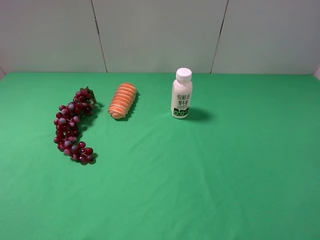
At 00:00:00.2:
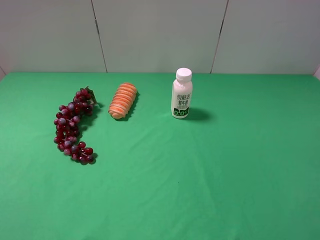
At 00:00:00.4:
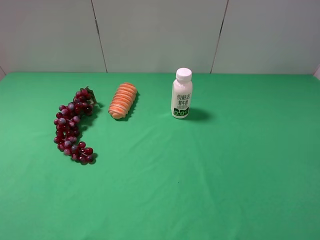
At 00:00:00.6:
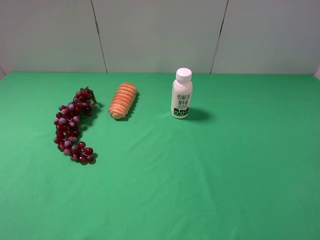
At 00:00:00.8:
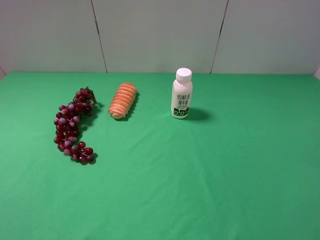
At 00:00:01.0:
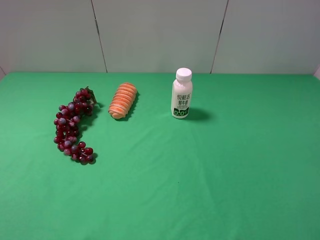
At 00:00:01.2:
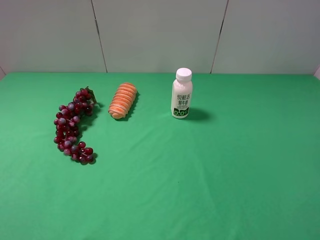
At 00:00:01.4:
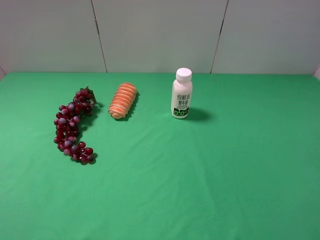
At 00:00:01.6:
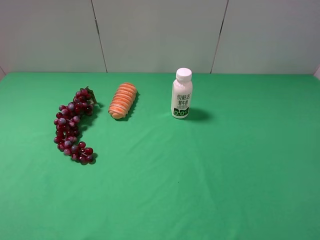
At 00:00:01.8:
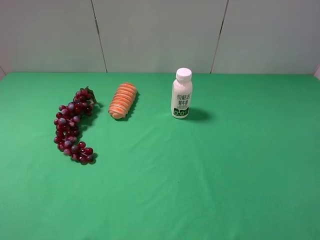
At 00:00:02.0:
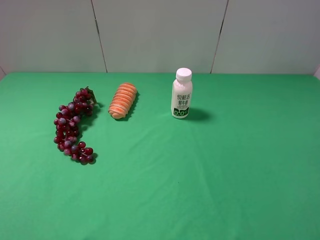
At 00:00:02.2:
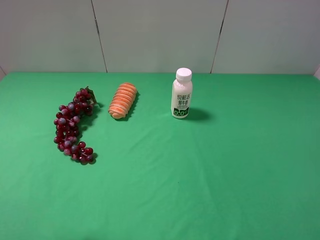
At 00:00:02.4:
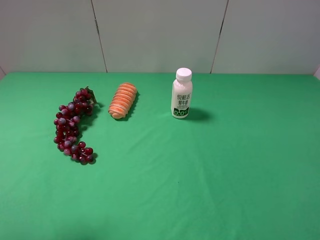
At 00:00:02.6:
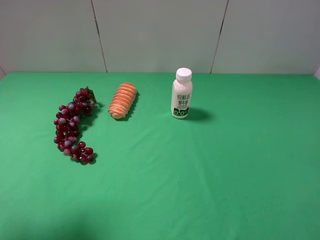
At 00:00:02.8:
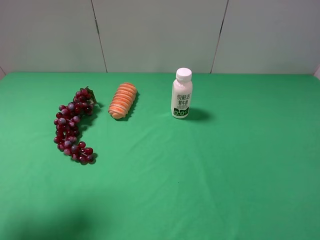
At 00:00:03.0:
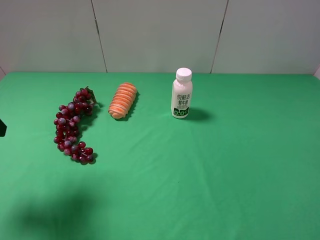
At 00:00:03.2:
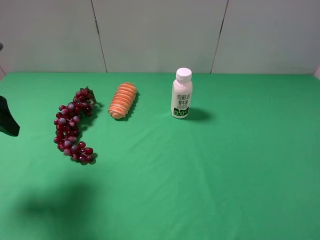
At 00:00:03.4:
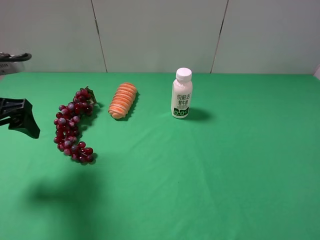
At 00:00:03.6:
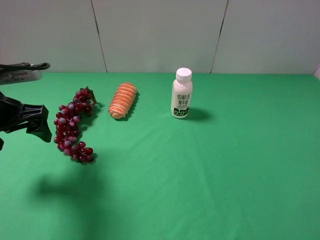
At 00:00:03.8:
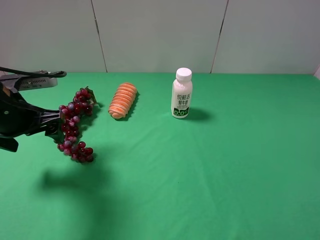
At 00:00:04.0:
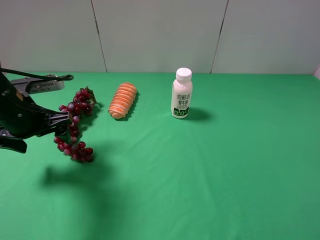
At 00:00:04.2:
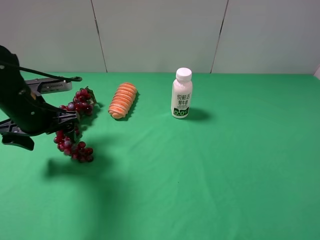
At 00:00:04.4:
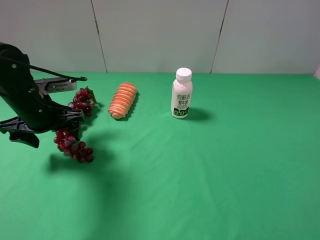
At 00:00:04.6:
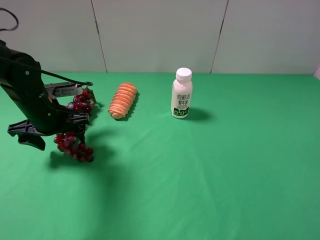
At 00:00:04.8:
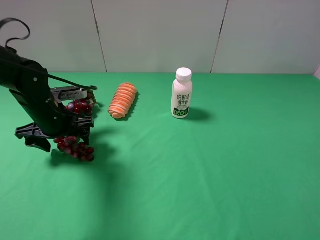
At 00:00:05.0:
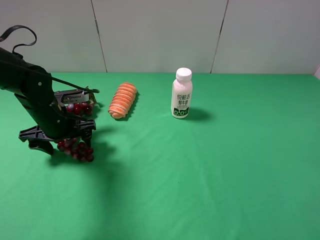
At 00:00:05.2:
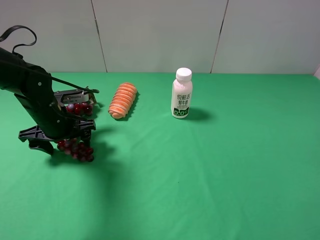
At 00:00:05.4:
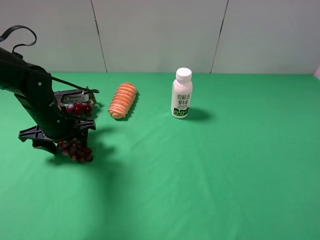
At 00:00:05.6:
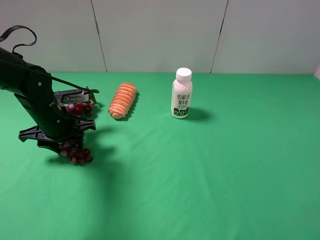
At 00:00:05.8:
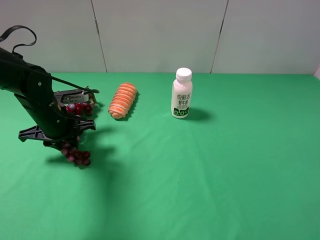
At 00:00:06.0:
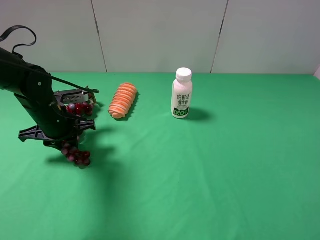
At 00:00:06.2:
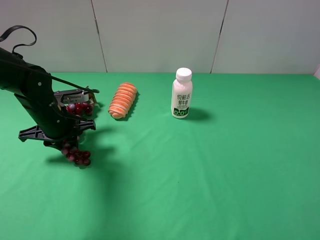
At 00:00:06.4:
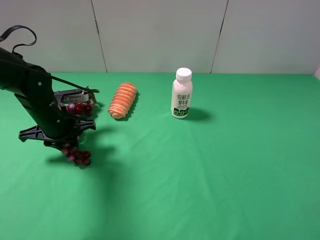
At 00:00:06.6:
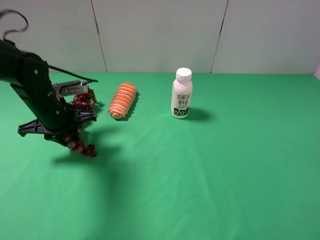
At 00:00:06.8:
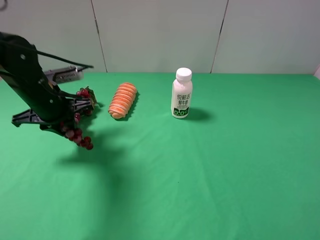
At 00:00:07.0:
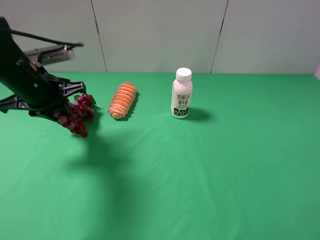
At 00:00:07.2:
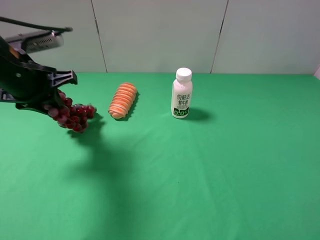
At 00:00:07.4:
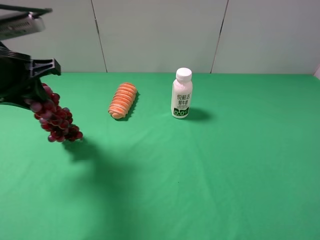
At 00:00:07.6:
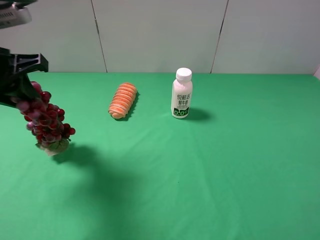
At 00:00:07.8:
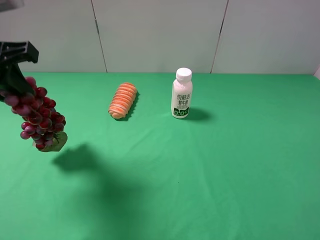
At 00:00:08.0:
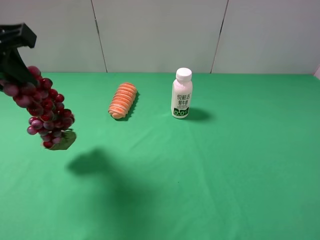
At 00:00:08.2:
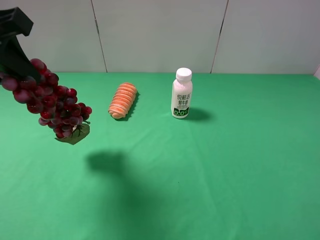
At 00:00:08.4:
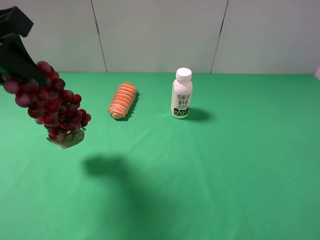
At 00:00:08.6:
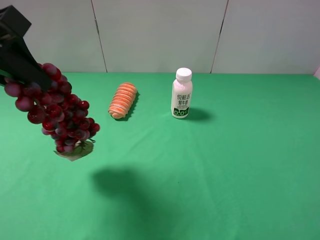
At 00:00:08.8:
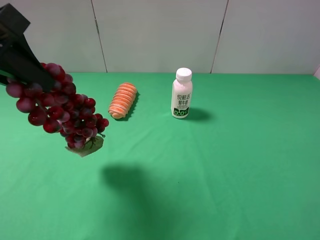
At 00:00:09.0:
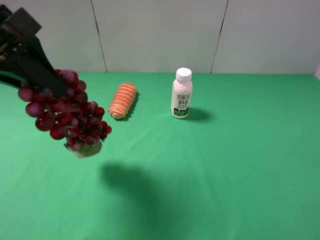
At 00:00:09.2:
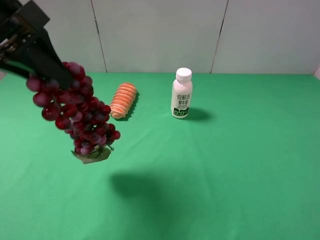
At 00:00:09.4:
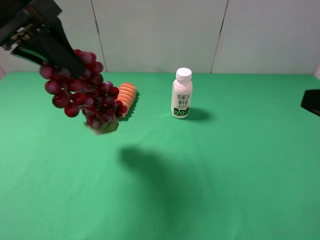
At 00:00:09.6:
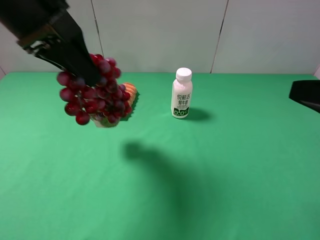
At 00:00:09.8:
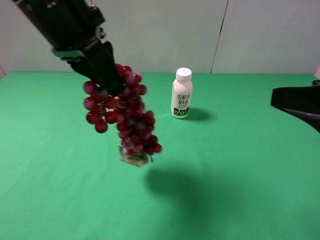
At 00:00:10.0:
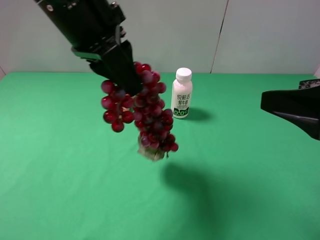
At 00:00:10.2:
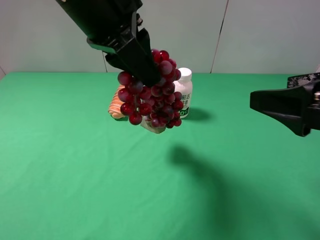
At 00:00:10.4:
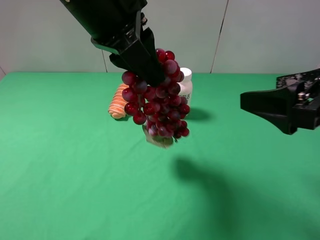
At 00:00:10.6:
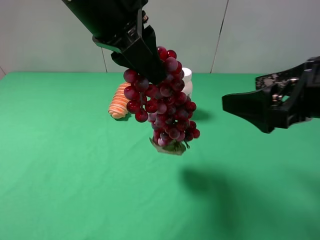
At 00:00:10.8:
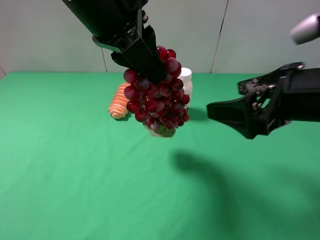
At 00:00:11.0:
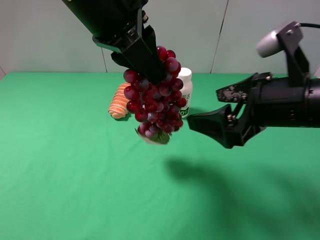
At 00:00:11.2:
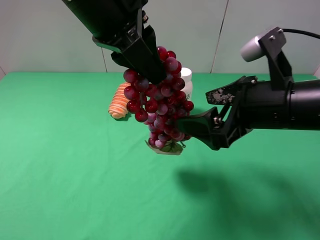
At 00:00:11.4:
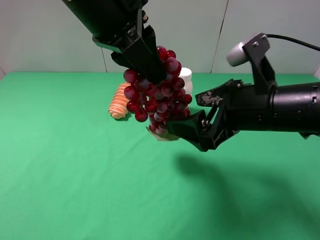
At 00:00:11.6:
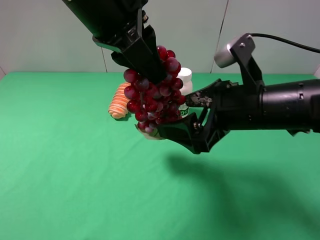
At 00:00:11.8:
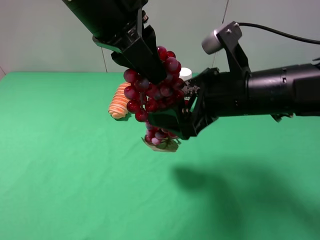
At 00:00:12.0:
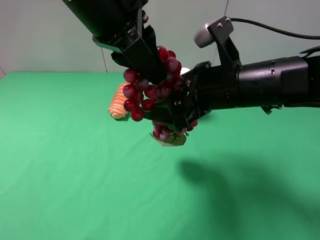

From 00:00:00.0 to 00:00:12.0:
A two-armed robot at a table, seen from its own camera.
Task of the whole recording: use the left gripper to pick up the item and transfer it from the left gripper to the right gripper.
Step, from 00:00:00.0 to 00:00:05.8: Use the left gripper to grab the grape on the left side of the table.
From 00:00:00.0 to 00:00:01.6: Both grippers stay about where they are.
From 00:00:01.6 to 00:00:03.0: The left gripper heads forward, covering about 20 cm.
From 00:00:03.0 to 00:00:04.4: The left gripper moves downward, forward and to the right, some 20 cm.
From 00:00:04.4 to 00:00:06.0: The left gripper closes.
From 00:00:06.0 to 00:00:07.6: The left gripper travels upward and backward by approximately 20 cm.
From 00:00:07.6 to 00:00:09.0: The left gripper shifts by approximately 5 cm.
From 00:00:09.0 to 00:00:10.4: The left gripper heads to the right, covering some 15 cm. The right gripper heads forward and to the left, covering some 10 cm.
From 00:00:10.4 to 00:00:12.0: The right gripper travels to the left and forward by approximately 15 cm.

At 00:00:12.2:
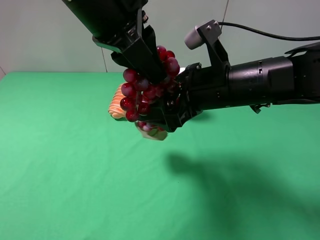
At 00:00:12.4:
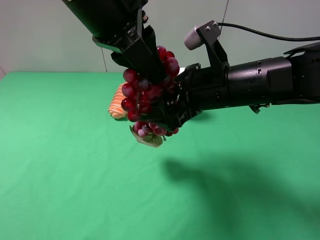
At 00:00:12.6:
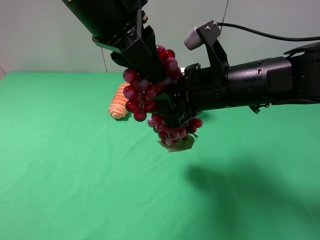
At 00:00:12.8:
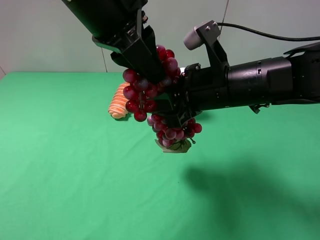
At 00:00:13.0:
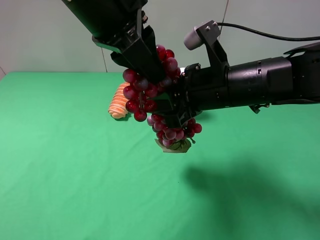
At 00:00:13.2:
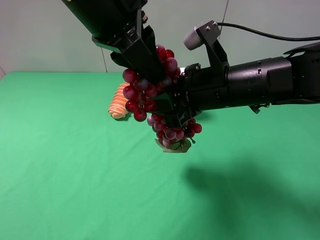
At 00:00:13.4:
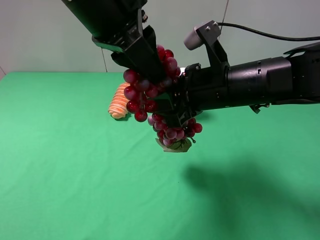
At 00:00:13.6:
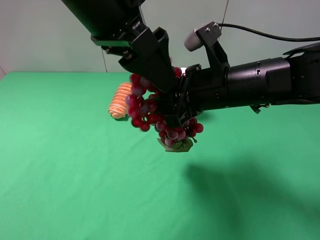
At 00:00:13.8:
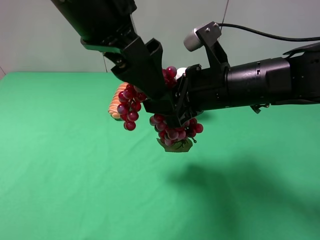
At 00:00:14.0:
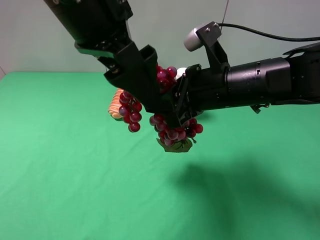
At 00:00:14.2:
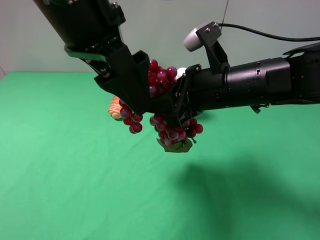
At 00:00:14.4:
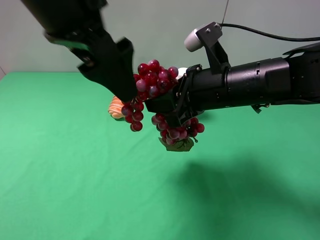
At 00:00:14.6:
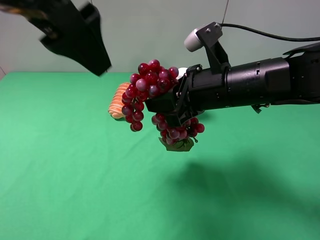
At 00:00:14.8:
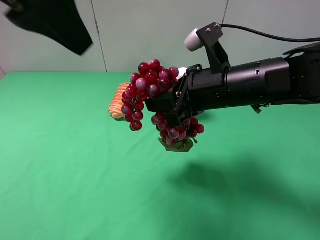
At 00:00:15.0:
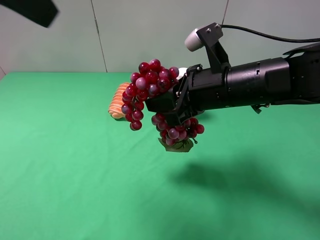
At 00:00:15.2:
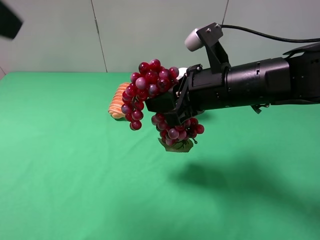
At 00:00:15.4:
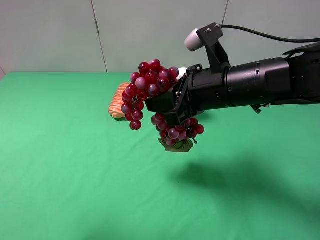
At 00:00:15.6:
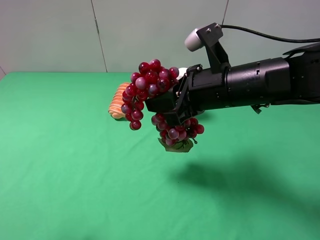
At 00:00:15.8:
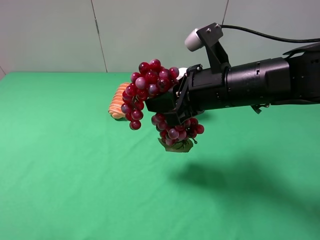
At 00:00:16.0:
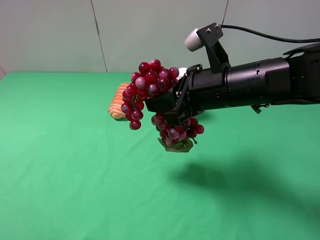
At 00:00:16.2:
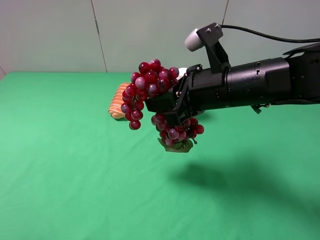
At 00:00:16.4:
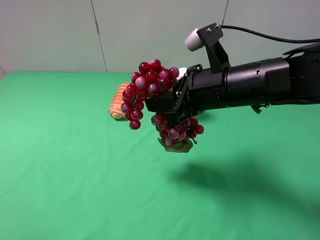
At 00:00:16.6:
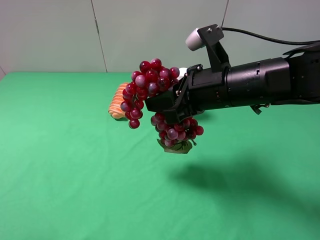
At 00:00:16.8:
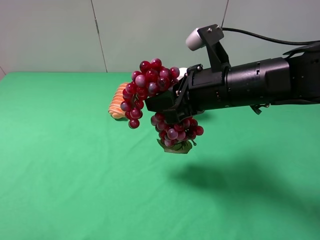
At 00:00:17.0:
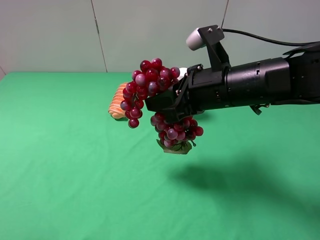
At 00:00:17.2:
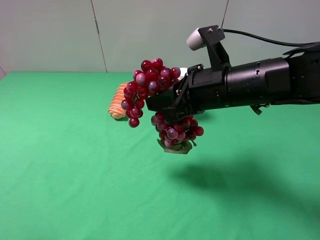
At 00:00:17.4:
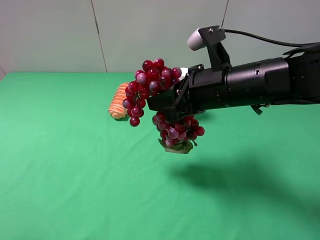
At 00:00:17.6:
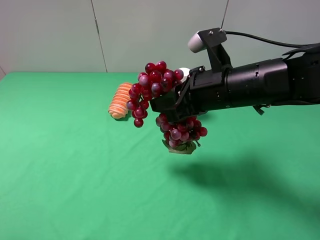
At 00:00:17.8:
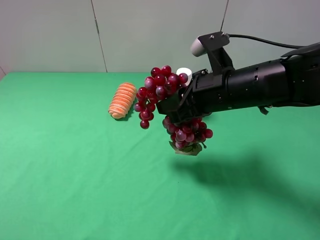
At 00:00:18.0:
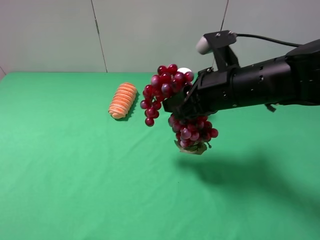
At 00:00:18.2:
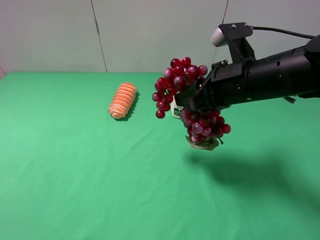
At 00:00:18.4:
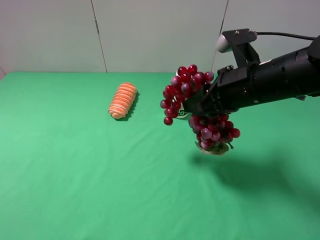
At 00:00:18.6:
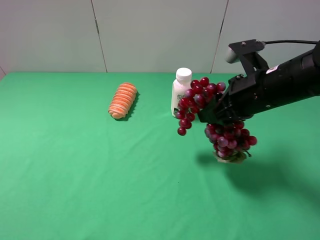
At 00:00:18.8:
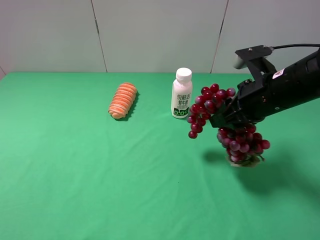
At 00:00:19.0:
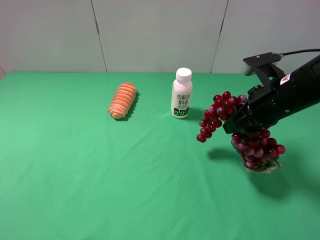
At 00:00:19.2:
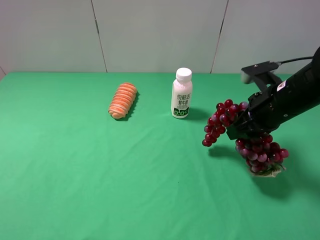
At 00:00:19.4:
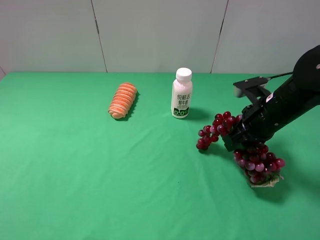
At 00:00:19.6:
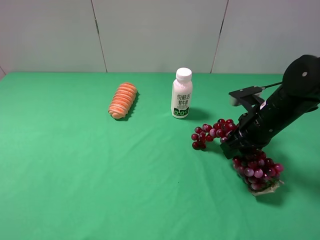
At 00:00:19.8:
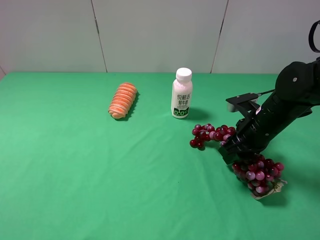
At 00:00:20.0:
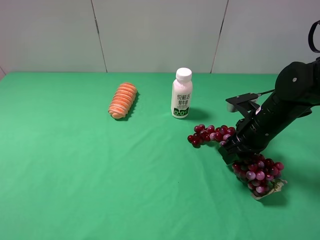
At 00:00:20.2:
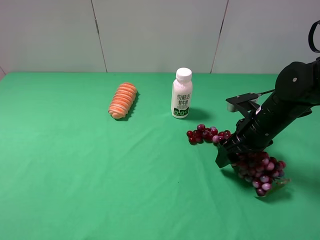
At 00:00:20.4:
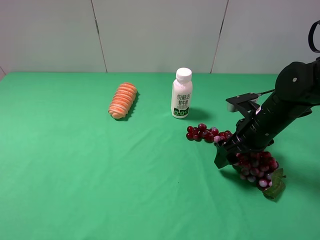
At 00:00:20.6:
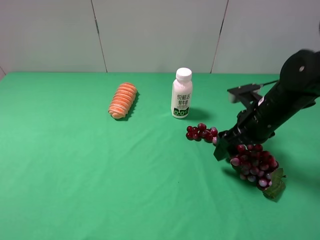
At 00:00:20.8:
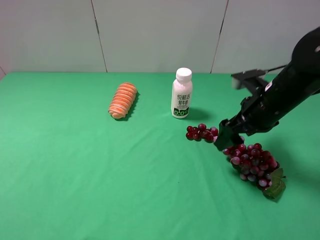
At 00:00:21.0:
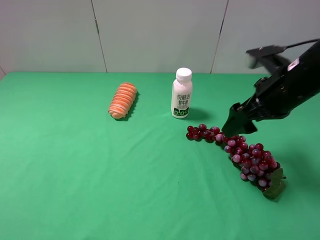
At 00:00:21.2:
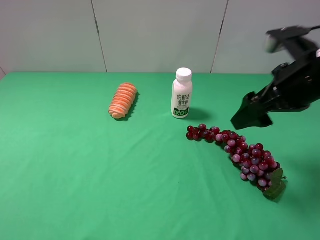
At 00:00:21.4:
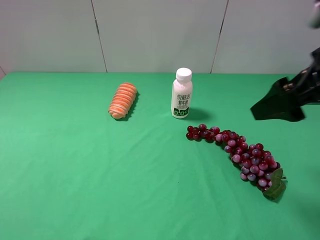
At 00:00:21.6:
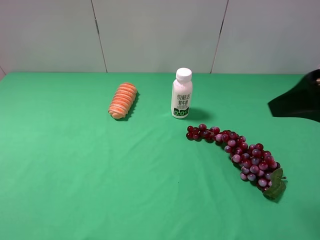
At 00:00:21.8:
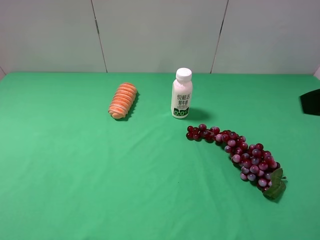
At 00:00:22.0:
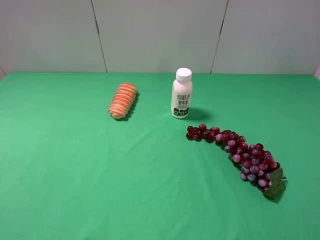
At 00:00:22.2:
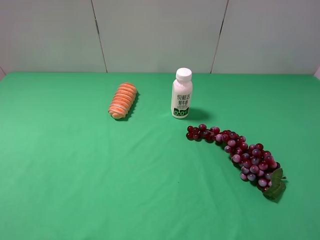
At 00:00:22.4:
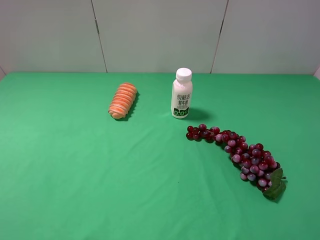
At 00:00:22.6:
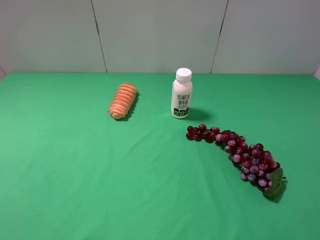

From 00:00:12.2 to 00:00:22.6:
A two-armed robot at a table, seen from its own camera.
Task of the whole recording: use the left gripper to pick up the item and transfer it from the left gripper to the right gripper.
Step, from 00:00:14.2 to 00:00:21.0: The right gripper places grape on the right side of the table.
From 00:00:12.2 to 00:00:13.6: The right gripper closes up. The left gripper opens up.
From 00:00:13.6 to 00:00:15.2: The left gripper moves to the left, backward and upward, about 20 cm.
From 00:00:15.2 to 00:00:16.6: The left gripper shifts roughly 20 cm downward, backward and to the left.
From 00:00:18.2 to 00:00:19.6: The right gripper goes about 10 cm downward and to the right.
From 00:00:19.6 to 00:00:21.2: The right gripper shifts some 15 cm upward, and opens.
From 00:00:21.2 to 00:00:22.6: The right gripper heads backward, covering approximately 20 cm.
